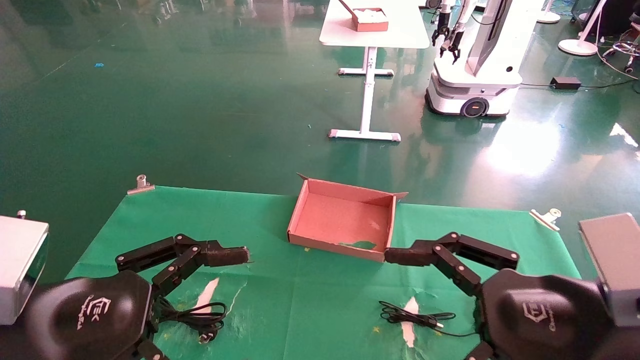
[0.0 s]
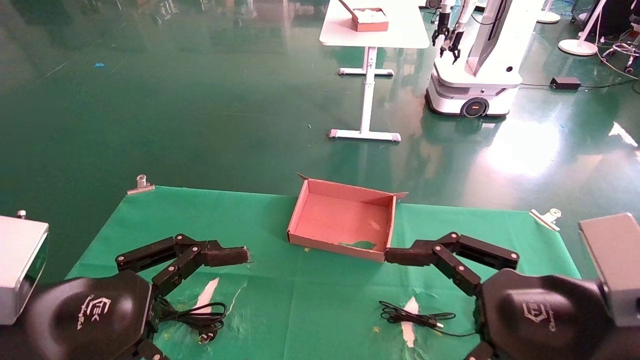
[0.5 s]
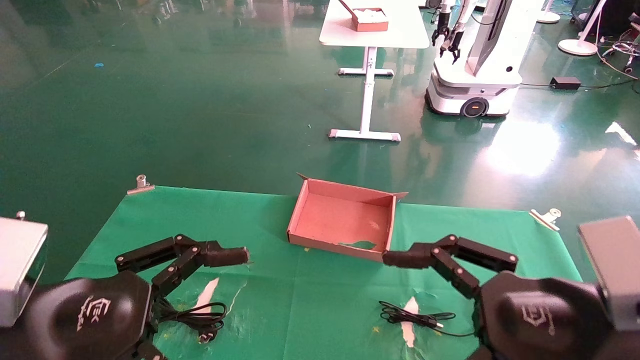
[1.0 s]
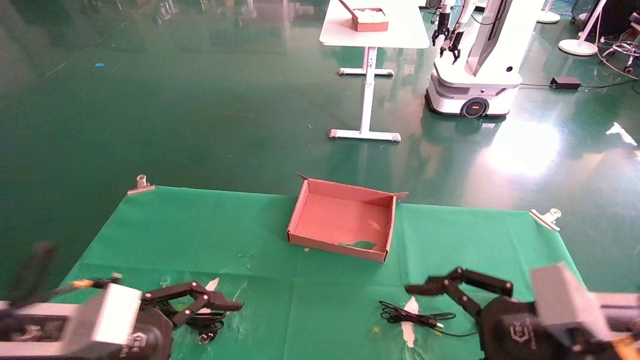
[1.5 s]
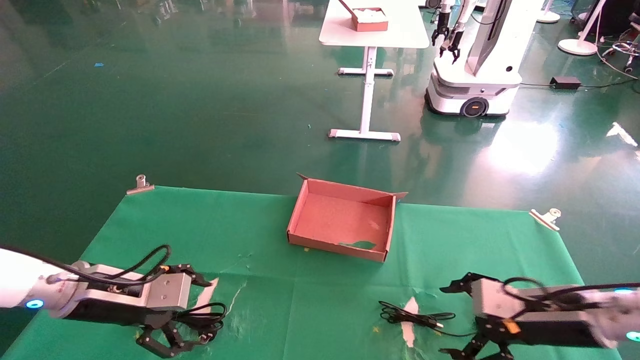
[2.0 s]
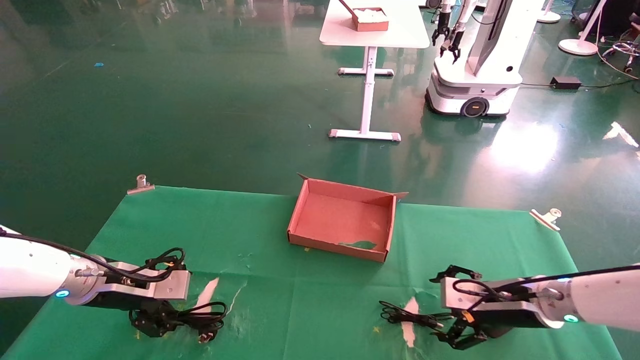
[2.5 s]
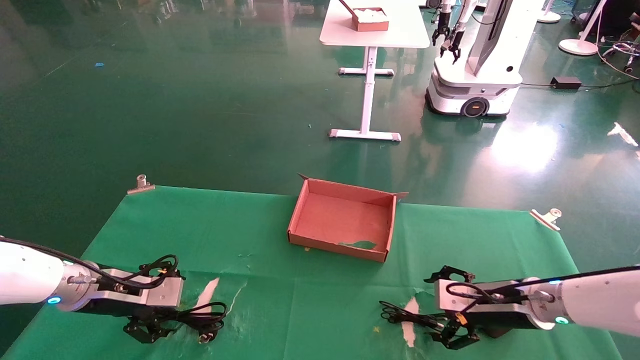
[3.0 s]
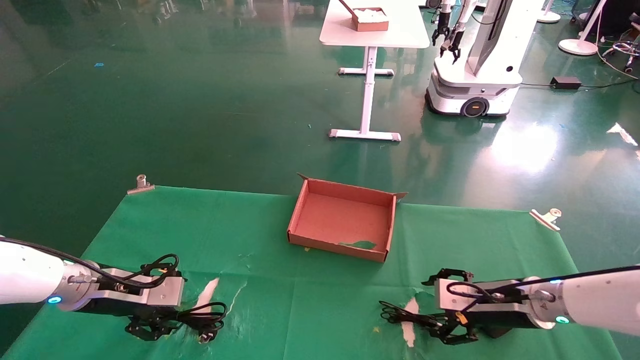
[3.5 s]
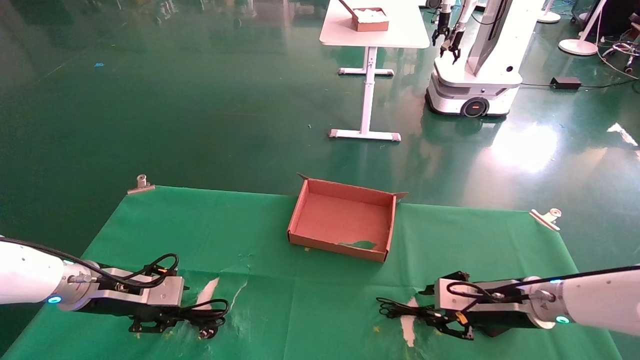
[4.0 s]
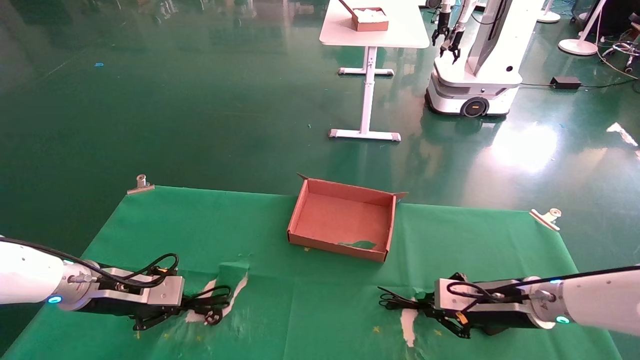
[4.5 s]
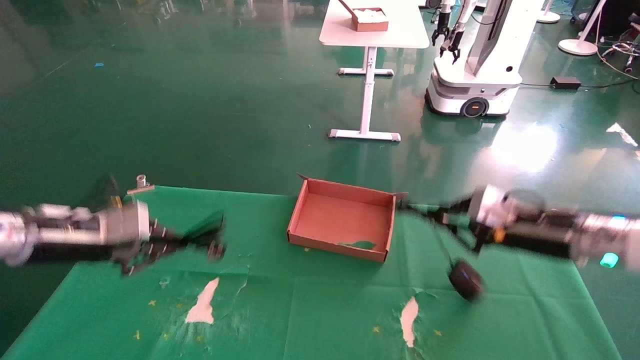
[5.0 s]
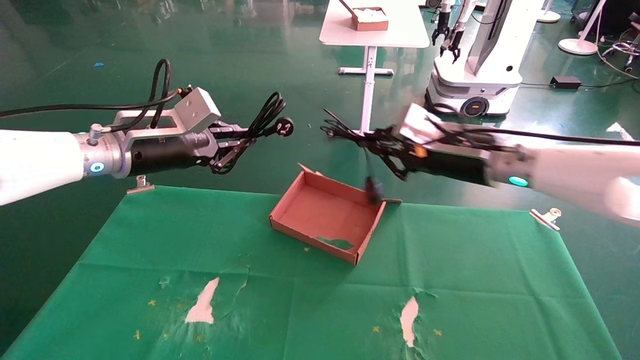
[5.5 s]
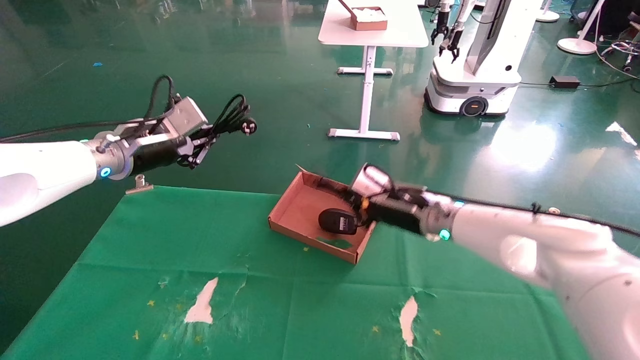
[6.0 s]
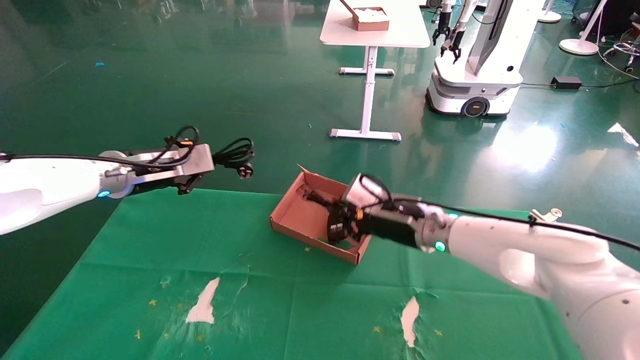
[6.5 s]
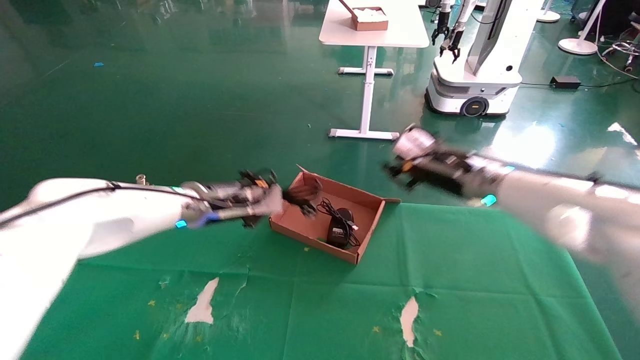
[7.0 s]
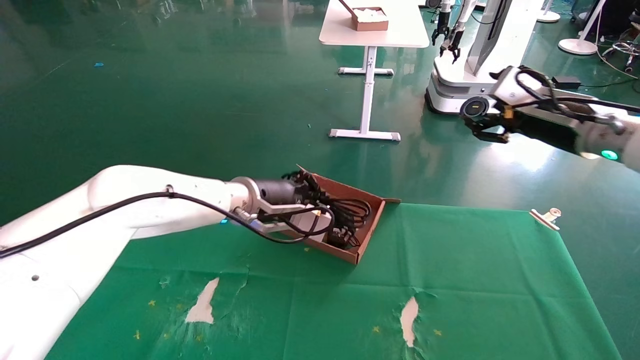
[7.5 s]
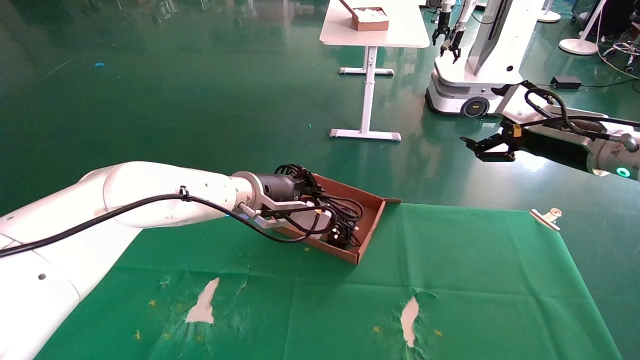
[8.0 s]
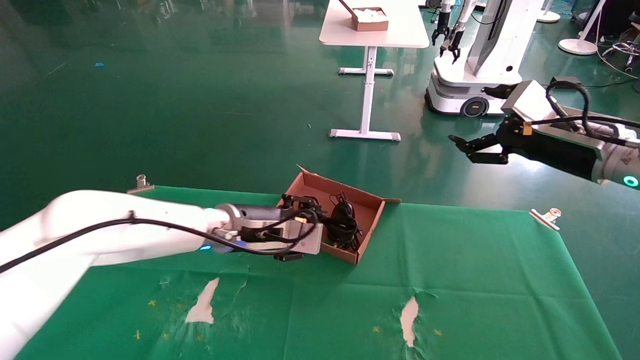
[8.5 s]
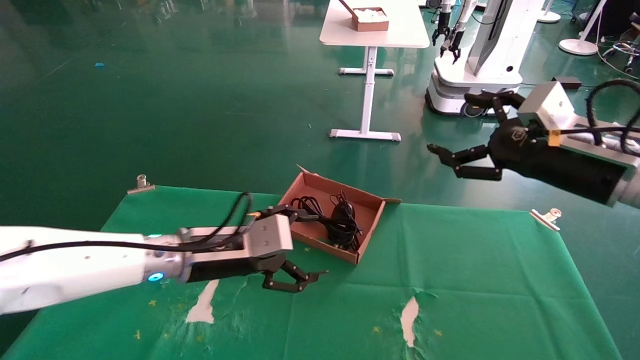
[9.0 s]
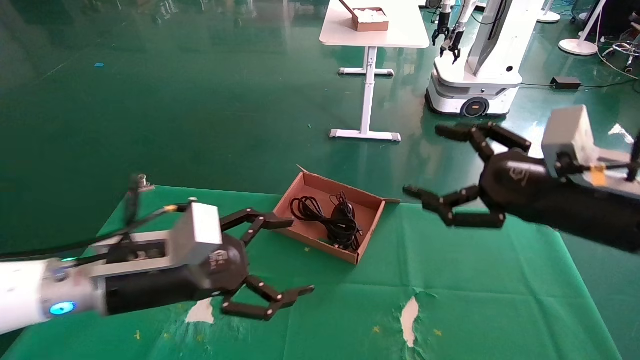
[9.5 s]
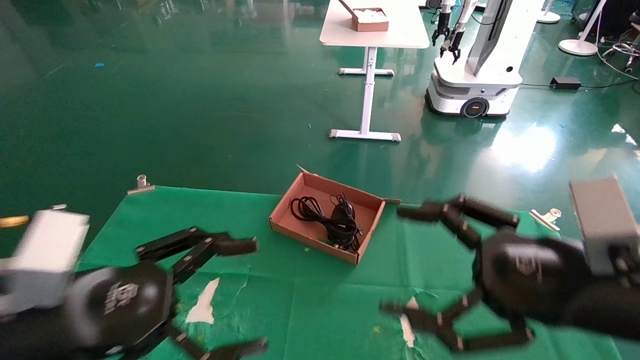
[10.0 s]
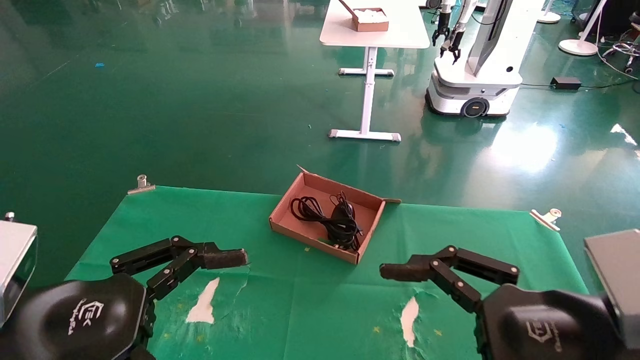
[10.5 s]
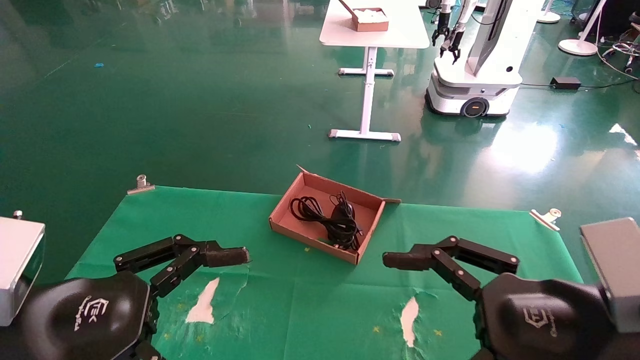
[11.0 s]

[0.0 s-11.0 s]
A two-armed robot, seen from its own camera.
Step, 1.5 to 4.0 s: Grab and lift both the mouse and power cord from the accessory packaging area at the same time.
Step, 4.5 to 8.5 s: Place the mouse and power cord into the box.
0.0 to 2.0 s: The right gripper shifts about 20 cm forward and downward, while the left gripper is displaced forward by approximately 20 cm.
2.0 to 3.5 s: The right gripper travels forward by about 5 cm; the left gripper moves some 5 cm.
3.5 to 5.5 s: Both grippers travel together upward, some 20 cm. The left gripper closes its fingers. Meanwhile the right gripper closes up.
5.5 to 7.5 s: The left gripper is displaced to the right and downward by some 20 cm; the right gripper shifts roughly 10 cm to the right, and opens its fingers.
7.5 to 9.0 s: The right gripper travels backward by approximately 10 cm; the left gripper shifts about 10 cm backward, to the left and downward, and opens up.
9.0 to 11.0 s: The right gripper moves backward, downward and to the left, some 20 cm; the left gripper is displaced backward and to the left by about 20 cm.
